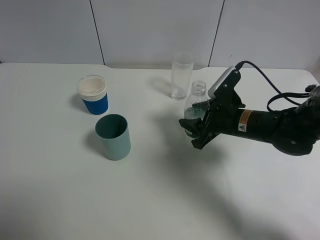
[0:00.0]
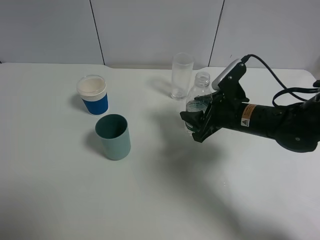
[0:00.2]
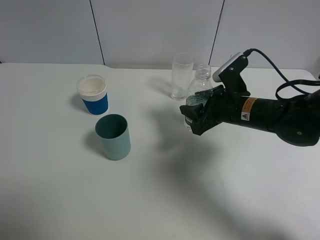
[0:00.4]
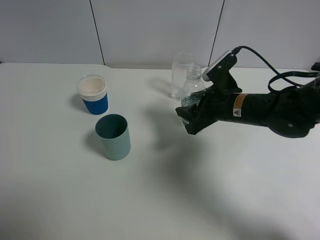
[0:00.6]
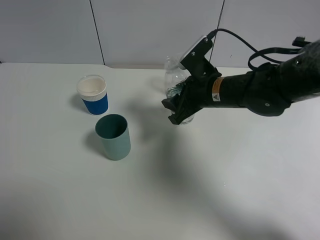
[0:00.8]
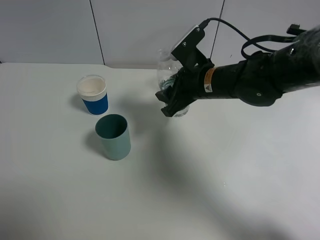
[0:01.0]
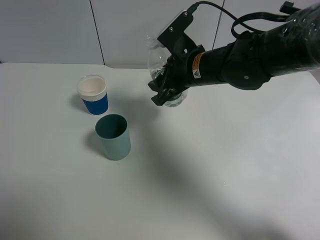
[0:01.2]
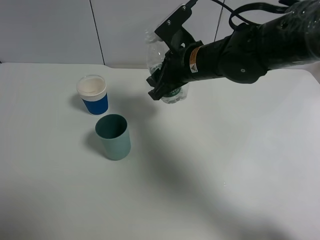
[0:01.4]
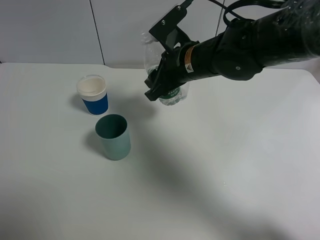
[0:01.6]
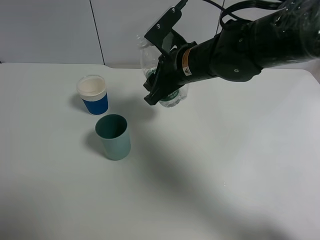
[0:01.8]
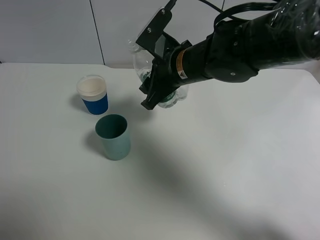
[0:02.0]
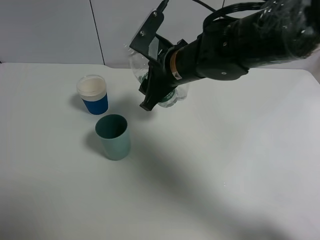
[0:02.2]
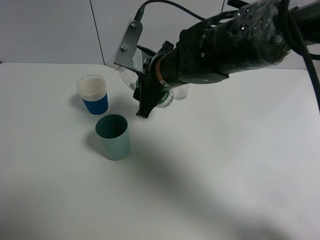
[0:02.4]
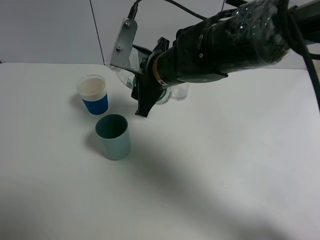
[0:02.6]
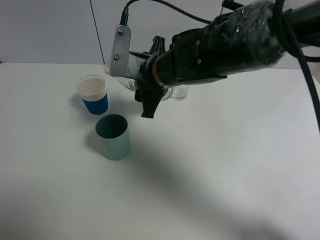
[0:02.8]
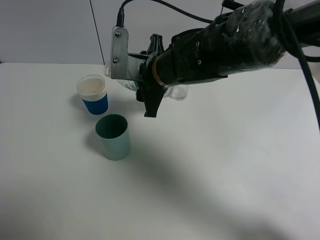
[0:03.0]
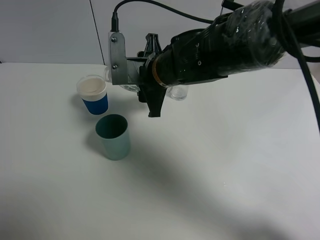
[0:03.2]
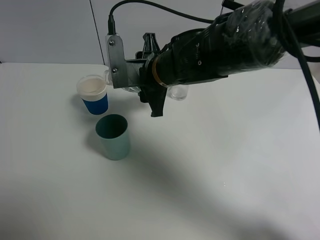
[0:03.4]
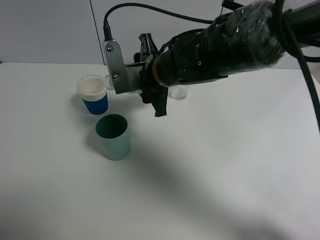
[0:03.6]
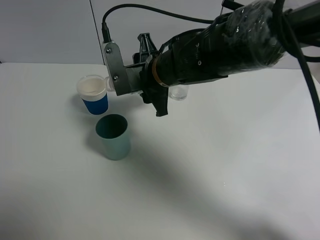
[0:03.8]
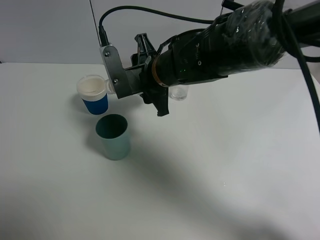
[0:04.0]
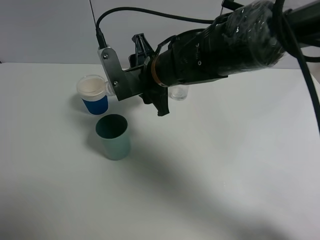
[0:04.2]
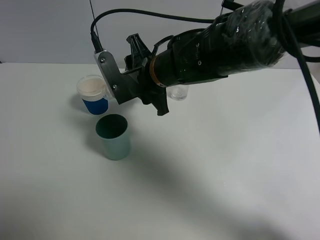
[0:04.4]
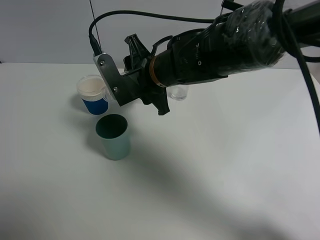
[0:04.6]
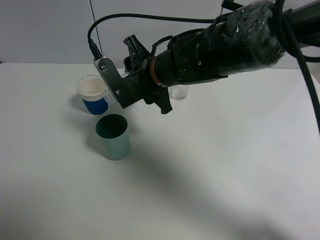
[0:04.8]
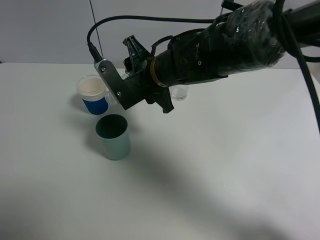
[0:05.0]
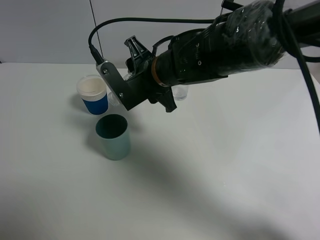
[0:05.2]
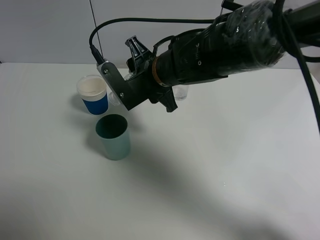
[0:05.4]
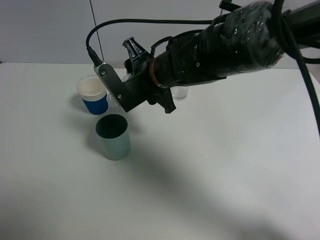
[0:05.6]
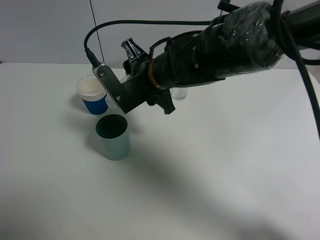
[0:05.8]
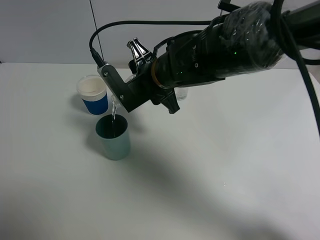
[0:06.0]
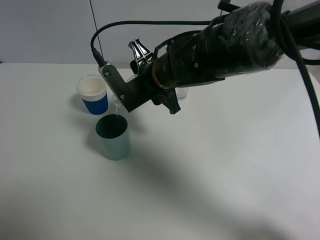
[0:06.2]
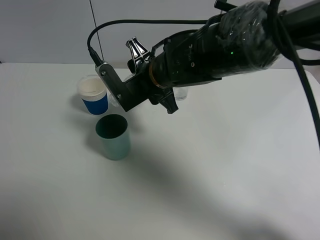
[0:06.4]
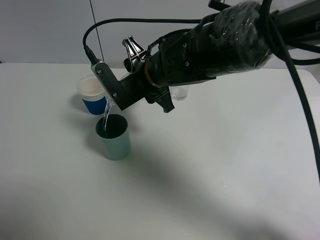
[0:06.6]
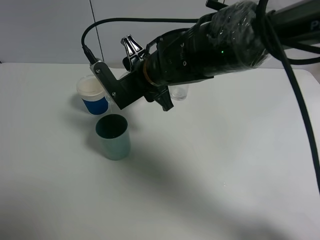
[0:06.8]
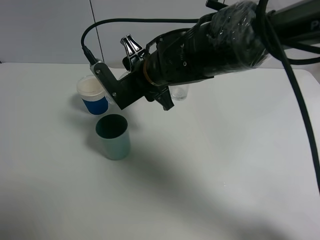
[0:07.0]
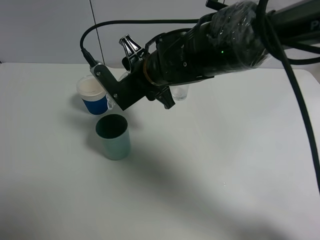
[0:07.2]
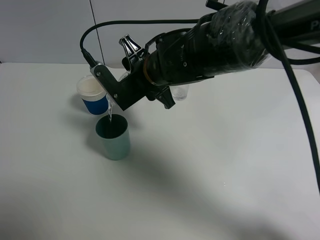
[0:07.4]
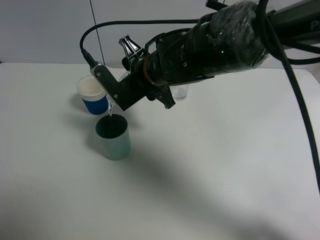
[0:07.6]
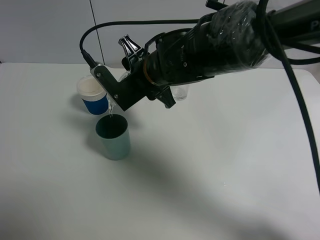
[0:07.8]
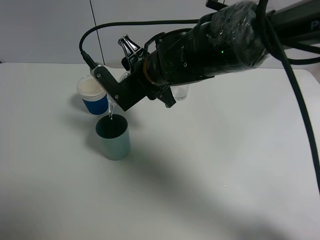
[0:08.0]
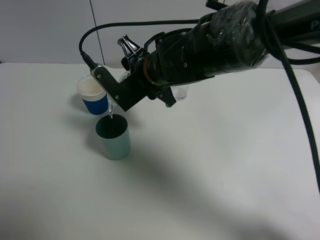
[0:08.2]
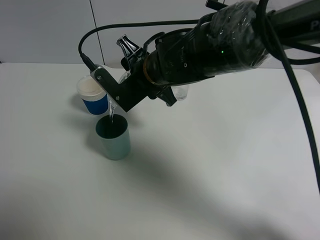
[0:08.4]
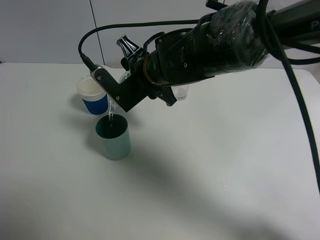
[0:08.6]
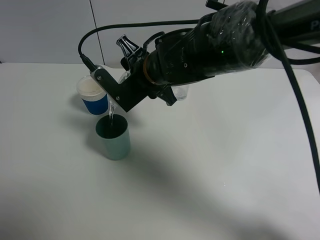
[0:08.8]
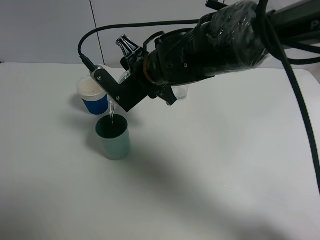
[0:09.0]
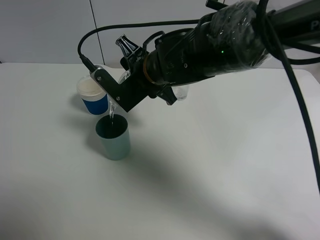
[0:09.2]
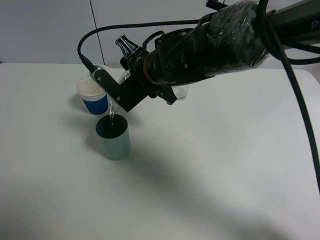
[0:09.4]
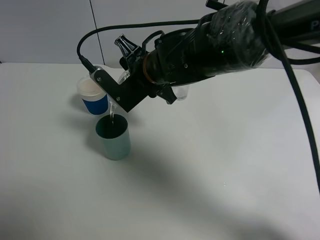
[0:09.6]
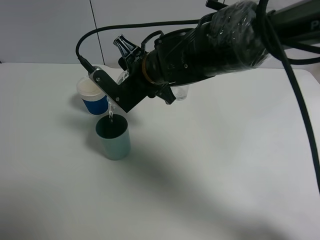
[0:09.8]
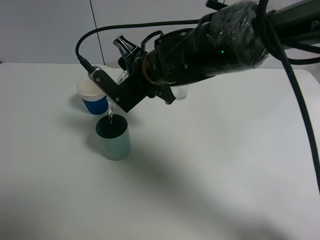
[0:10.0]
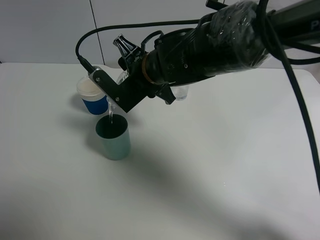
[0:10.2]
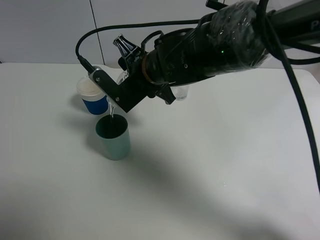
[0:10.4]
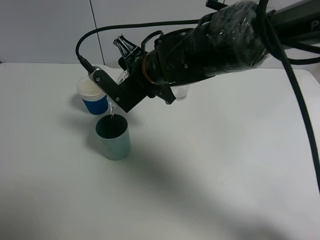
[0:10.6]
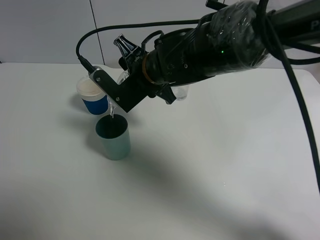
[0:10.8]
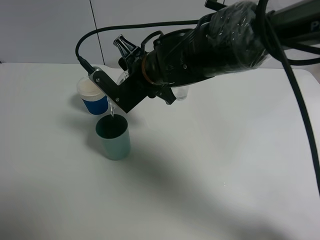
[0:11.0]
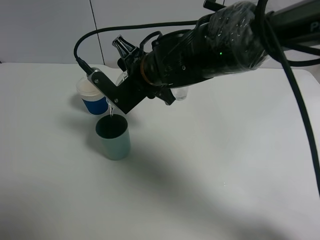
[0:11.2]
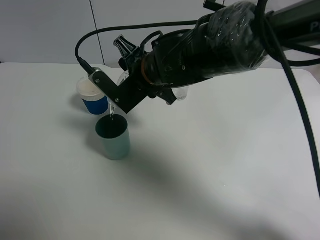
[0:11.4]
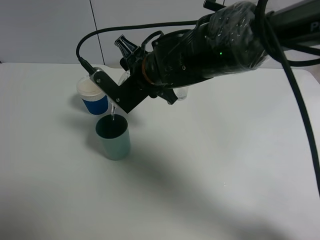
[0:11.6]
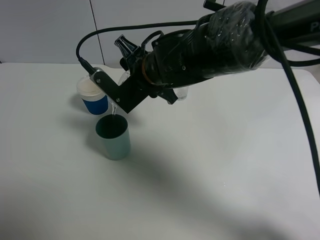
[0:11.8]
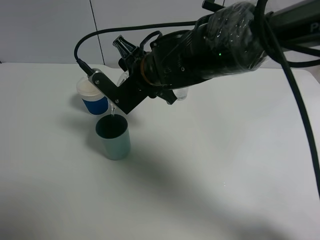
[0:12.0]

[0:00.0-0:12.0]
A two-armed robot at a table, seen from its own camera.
Task of the whole recording: use a gripper to hold the bottle of the drink and pour it into a random cup.
0:00.0 to 0:01.6: The right gripper heads to the left and upward, covering approximately 15 cm.
0:01.6 to 0:03.0: The right gripper shifts about 5 cm to the left.
0:04.4 to 0:06.0: The grippers make only small movements.
0:06.0 to 0:07.6: Neither gripper changes place.
0:07.6 to 0:09.0: Both grippers stay about where they are.
0:09.0 to 0:12.0: Both grippers stay about where they are.

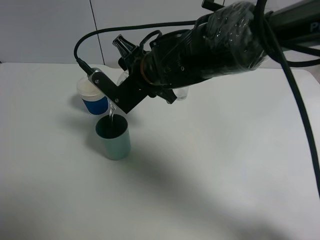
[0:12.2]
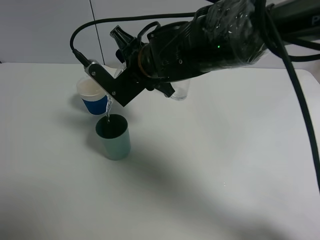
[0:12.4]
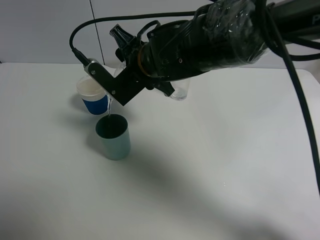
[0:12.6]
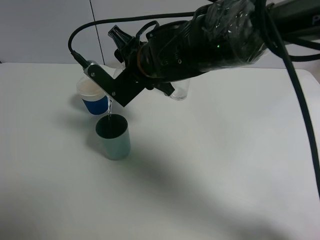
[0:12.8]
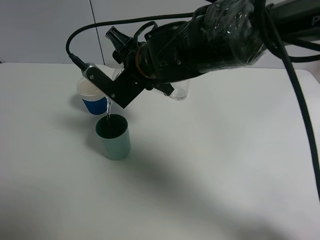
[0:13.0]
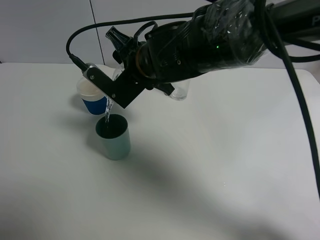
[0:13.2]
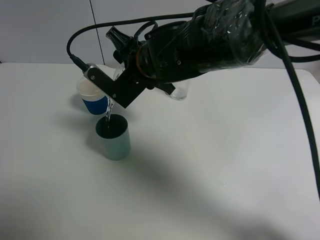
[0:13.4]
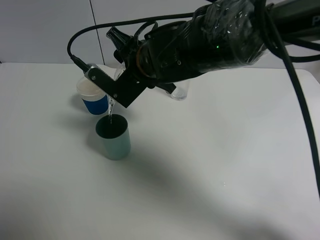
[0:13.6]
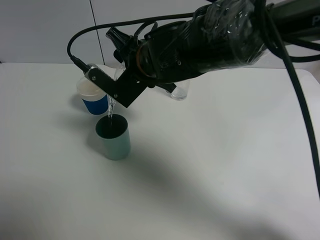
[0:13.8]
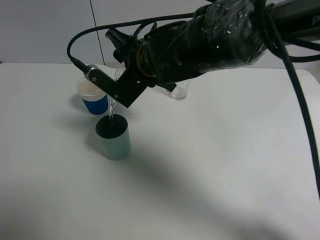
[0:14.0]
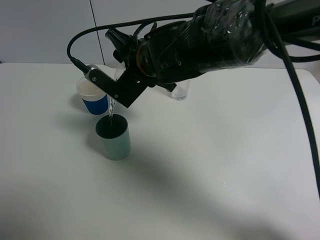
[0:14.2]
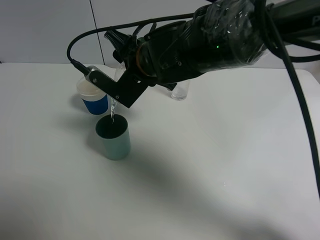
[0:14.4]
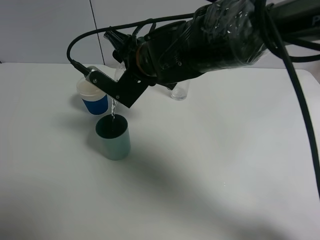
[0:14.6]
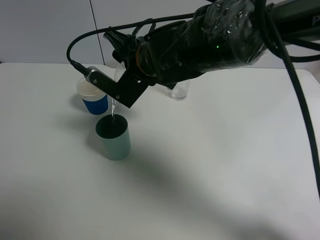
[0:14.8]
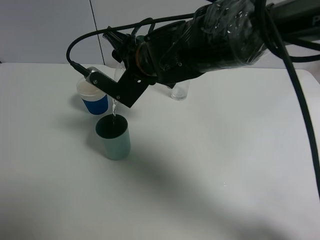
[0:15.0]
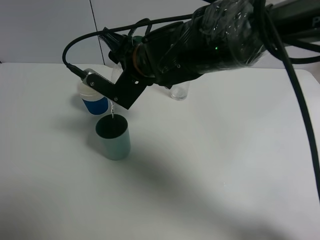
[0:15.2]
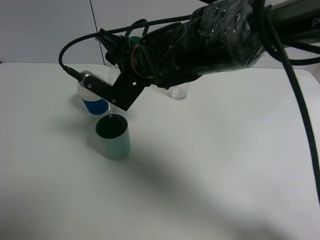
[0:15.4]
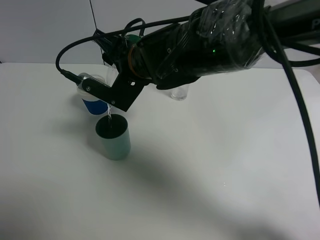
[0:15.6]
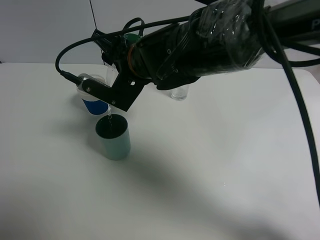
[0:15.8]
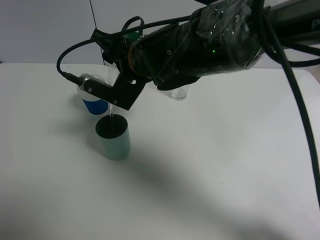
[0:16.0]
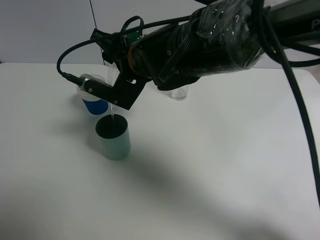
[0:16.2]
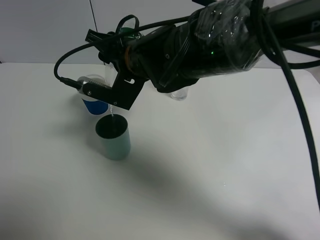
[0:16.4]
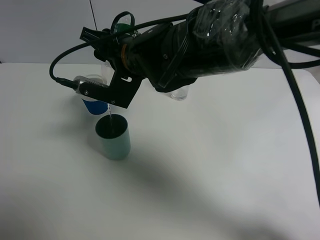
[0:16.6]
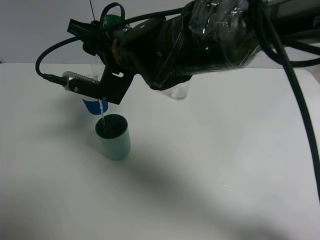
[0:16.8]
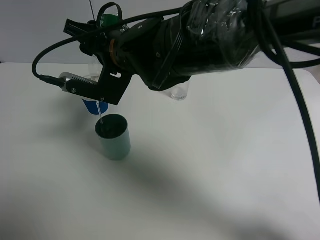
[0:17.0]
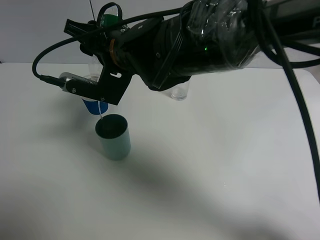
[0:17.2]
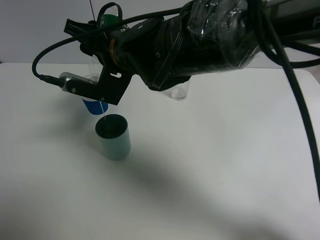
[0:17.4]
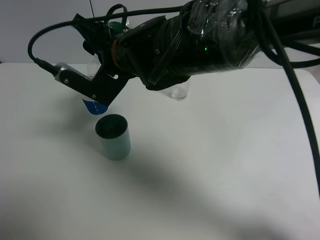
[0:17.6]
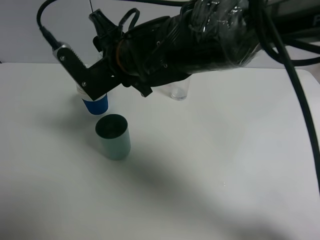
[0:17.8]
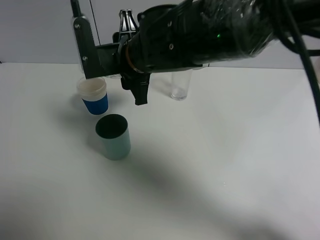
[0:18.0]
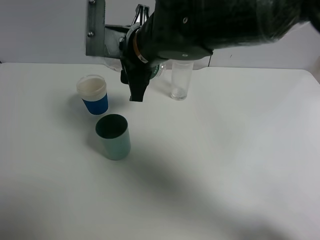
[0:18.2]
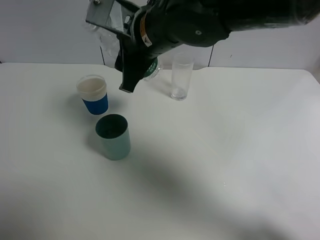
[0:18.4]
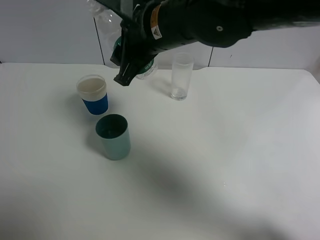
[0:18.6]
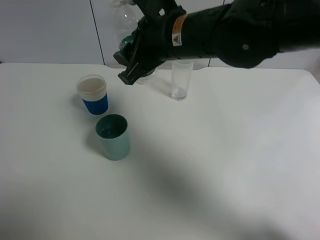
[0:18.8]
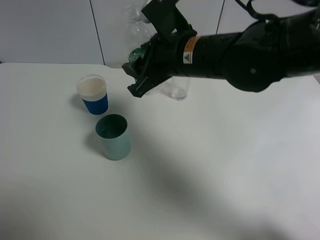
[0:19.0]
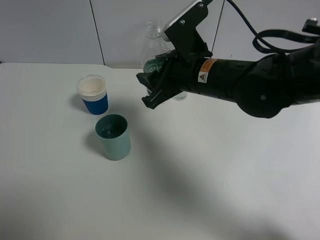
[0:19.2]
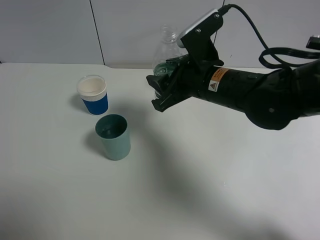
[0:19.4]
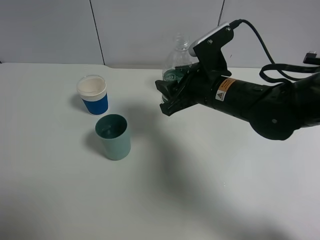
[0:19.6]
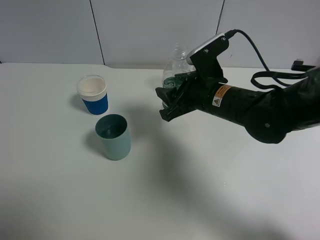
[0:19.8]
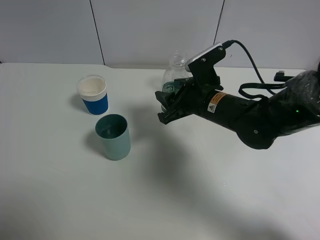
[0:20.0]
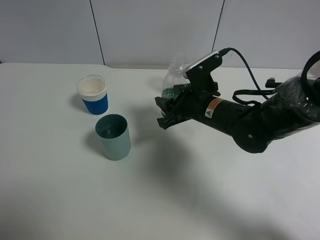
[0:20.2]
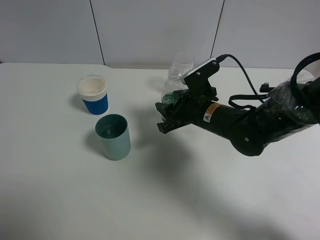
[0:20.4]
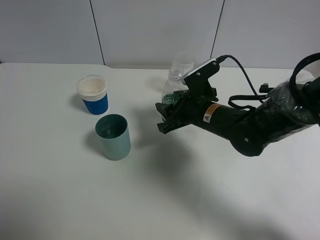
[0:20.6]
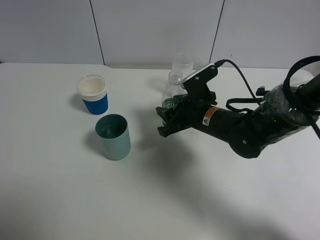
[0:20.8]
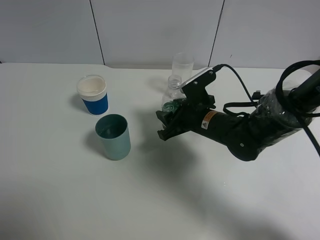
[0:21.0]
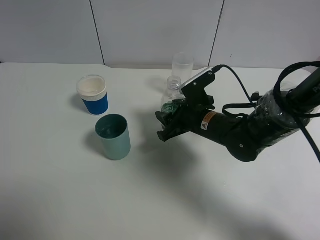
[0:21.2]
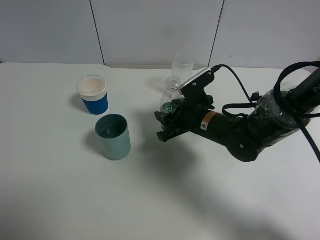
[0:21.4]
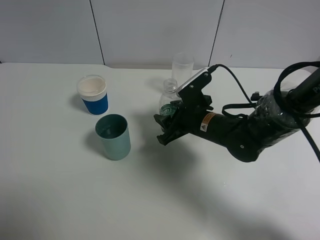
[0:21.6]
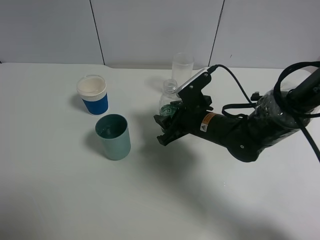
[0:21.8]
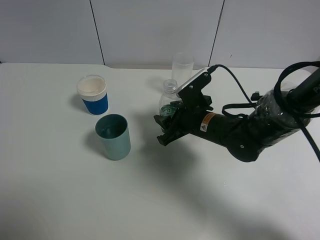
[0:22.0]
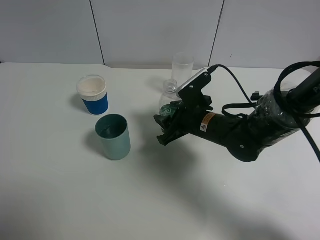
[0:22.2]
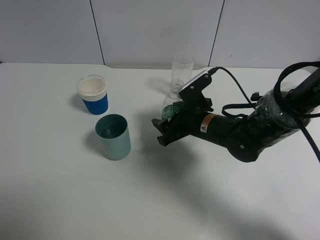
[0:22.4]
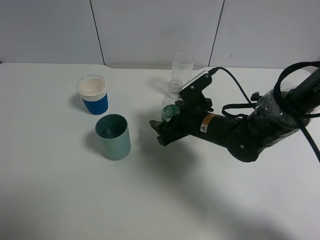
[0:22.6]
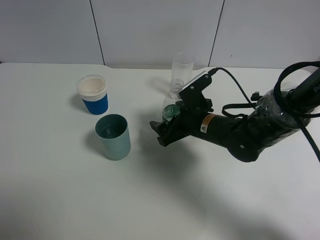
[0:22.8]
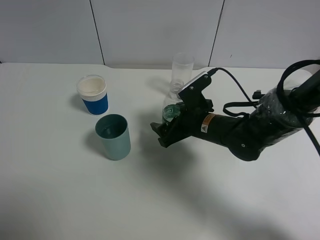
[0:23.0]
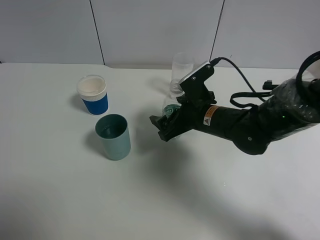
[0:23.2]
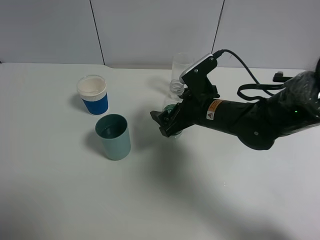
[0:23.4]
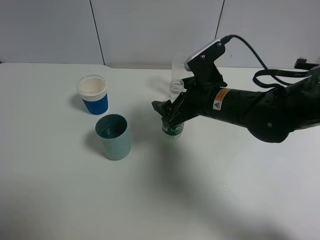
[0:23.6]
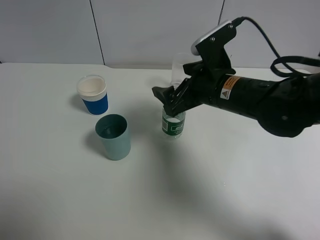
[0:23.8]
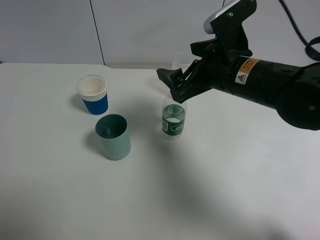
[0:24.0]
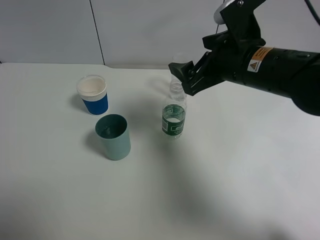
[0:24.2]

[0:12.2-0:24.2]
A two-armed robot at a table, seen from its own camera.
Task of the whole recording: use a gripper to hold the bottle of the drink and pour it into a random cup.
Step, 0:12.2 to 0:17.6: Pour the mineral water into the cyan cup with the right gripper.
Step, 0:17.8 to 0:23.4: Place the mineral water bottle on the table with the right gripper.
0:12.2 to 0:15.2: The grippers move only a little.
0:15.2 to 0:16.6: The grippers stay close to where they were, moving slightly.
0:18.2 to 0:19.8: The right gripper shifts about 15 cm to the right and downward.
0:19.8 to 0:21.2: The right gripper travels downward by some 5 cm.
0:21.2 to 0:22.6: The right gripper opens.
0:22.6 to 0:24.2: The right gripper heads upward, covering about 15 cm.
